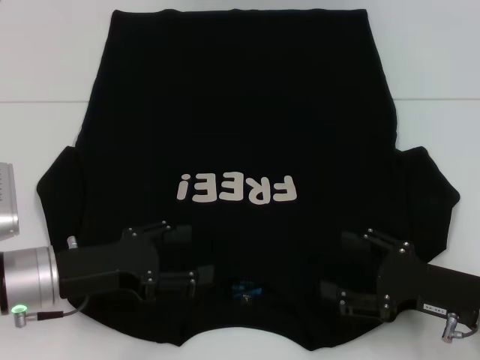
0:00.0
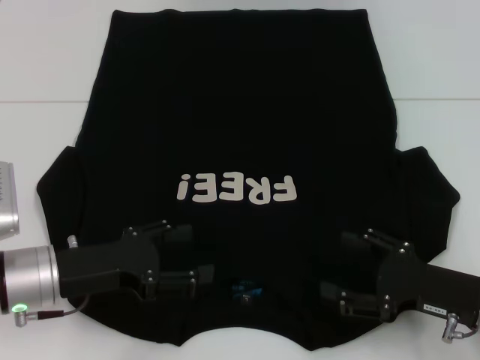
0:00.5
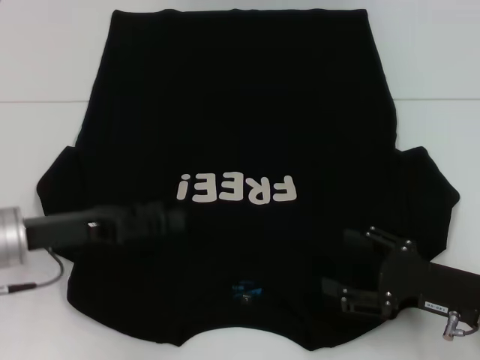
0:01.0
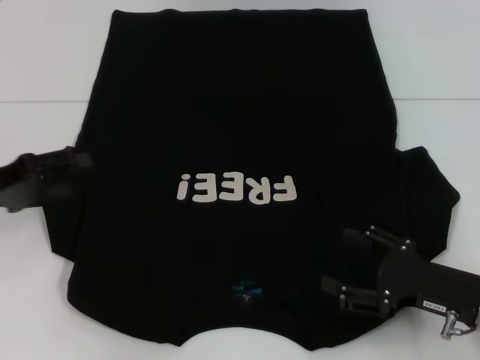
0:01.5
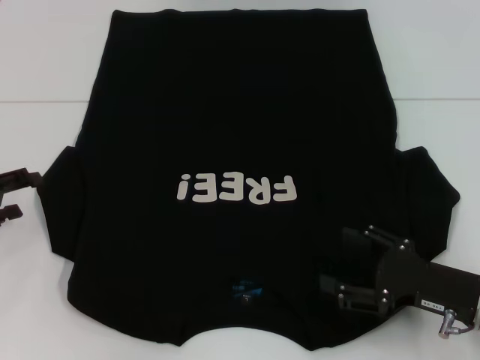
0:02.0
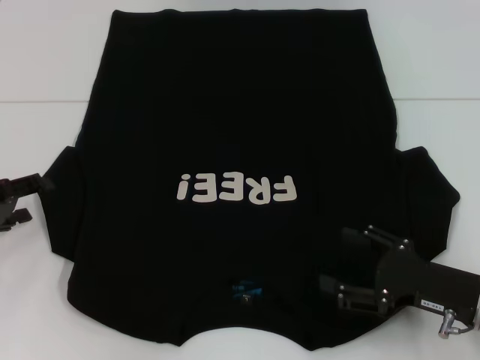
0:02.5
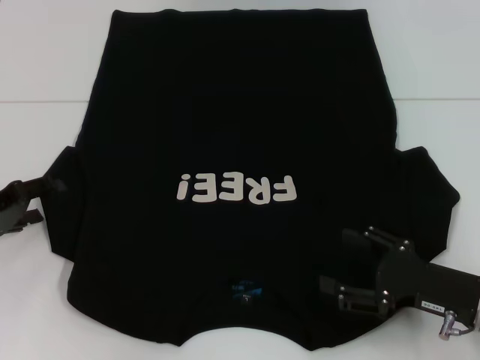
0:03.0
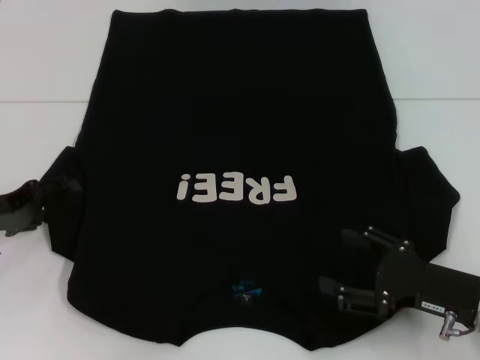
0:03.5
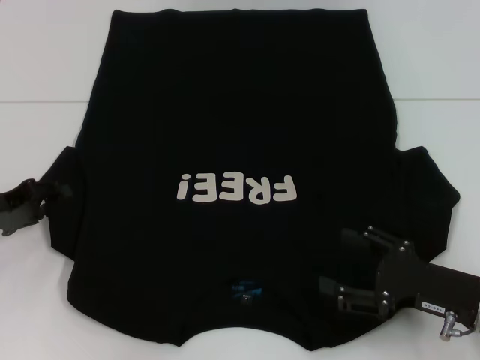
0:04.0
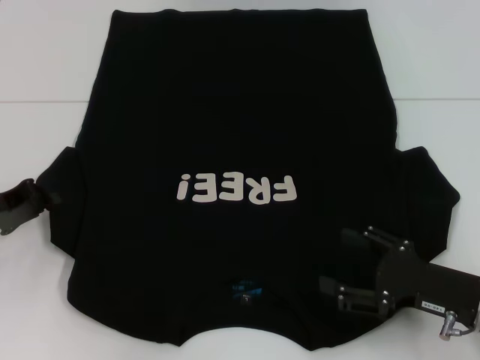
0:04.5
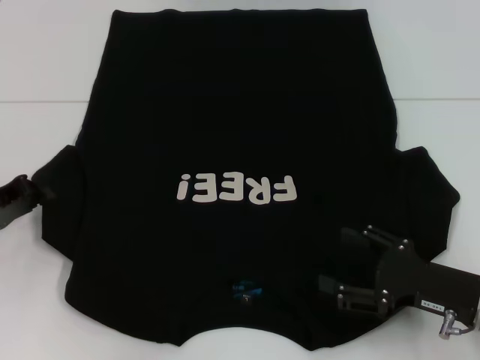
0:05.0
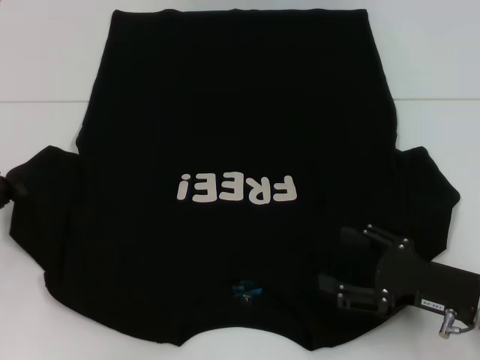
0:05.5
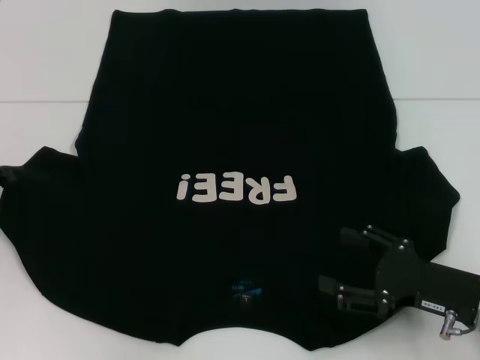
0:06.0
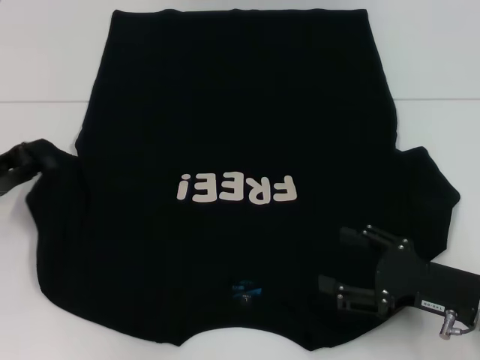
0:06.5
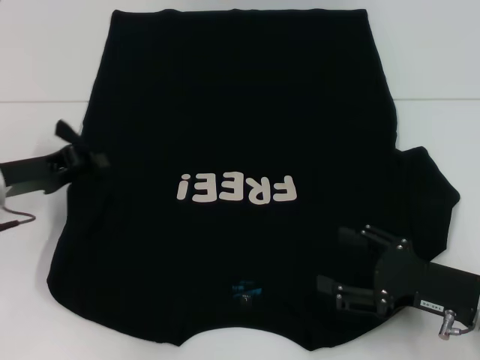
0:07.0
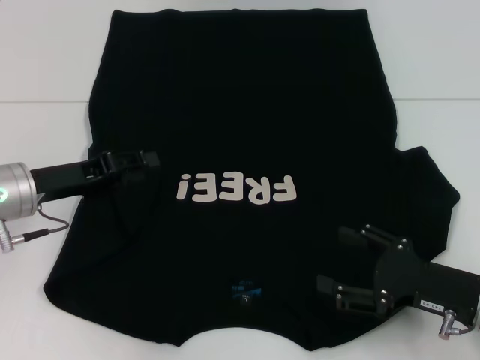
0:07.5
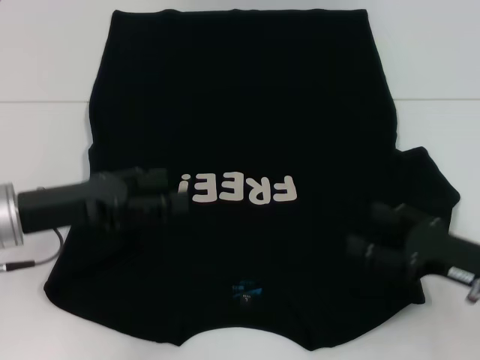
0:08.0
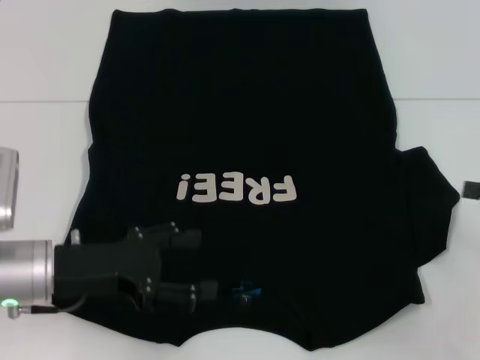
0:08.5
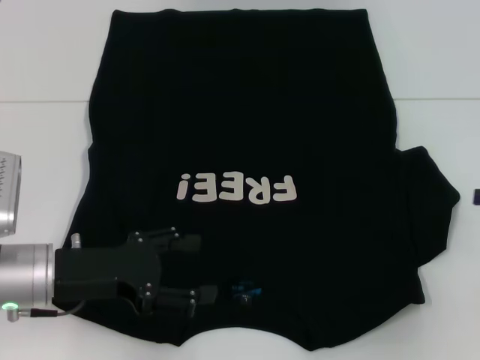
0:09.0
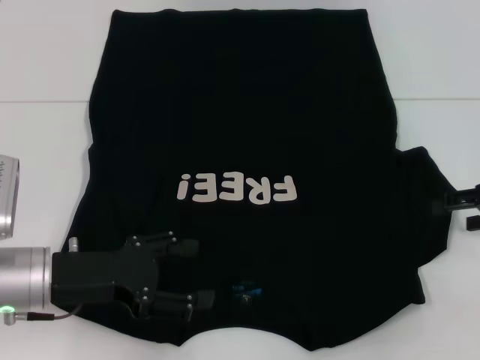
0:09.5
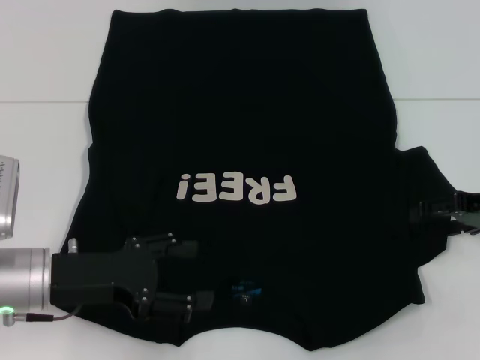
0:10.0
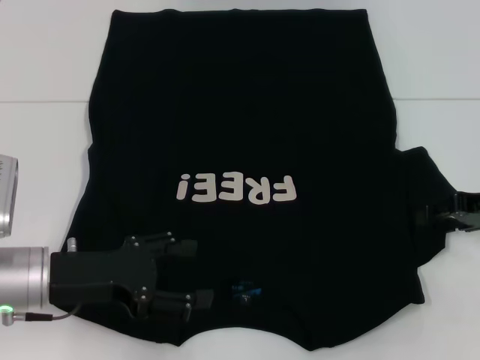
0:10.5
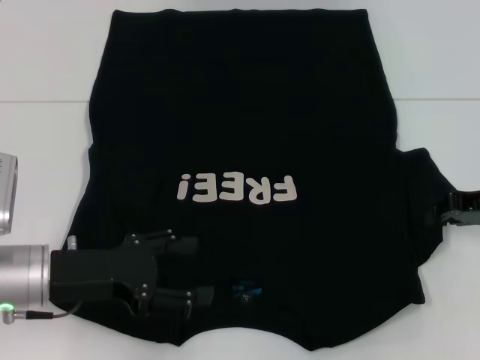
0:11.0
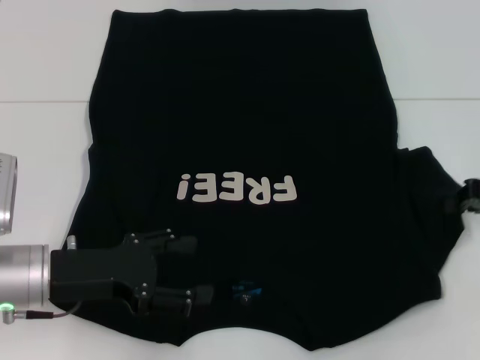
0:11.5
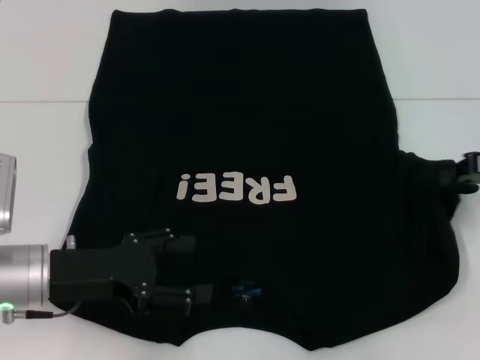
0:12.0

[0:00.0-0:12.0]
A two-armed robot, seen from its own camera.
Step, 0:00.0 to 0:07.5: Fold the bottom left sleeve with your left hand.
0:00.0 to 0:02.0: The left gripper goes about 15 cm to the left.
0:02.0 to 0:04.0: There are only small adjustments of the grippers.
0:04.0 to 0:06.0: The left gripper closes.
0:06.0 to 0:08.0: The left gripper shifts about 10 cm to the right, and opens.
0:08.0 to 0:10.0: The right gripper goes roughly 10 cm forward and upward. The left gripper changes place by some 5 cm.
0:10.0 to 0:12.0: The right gripper closes its fingers.

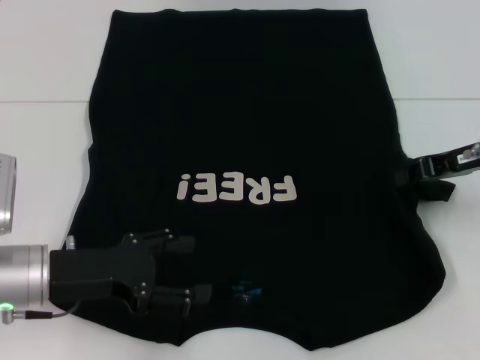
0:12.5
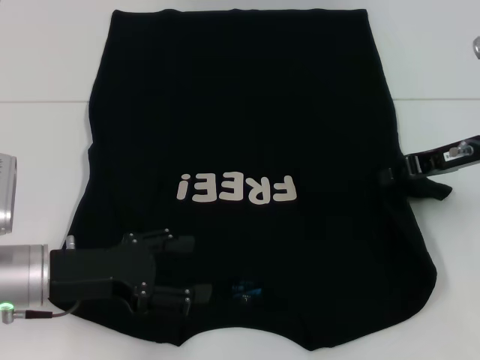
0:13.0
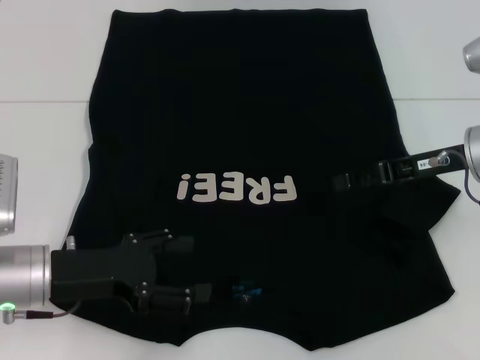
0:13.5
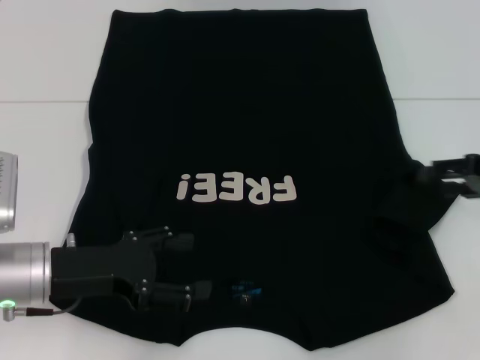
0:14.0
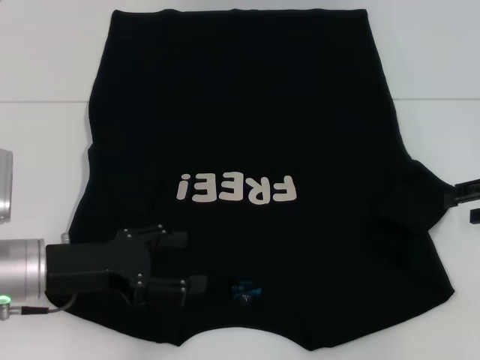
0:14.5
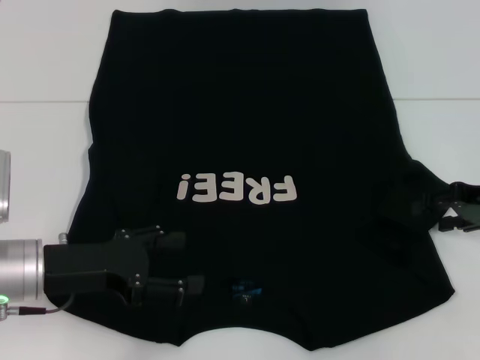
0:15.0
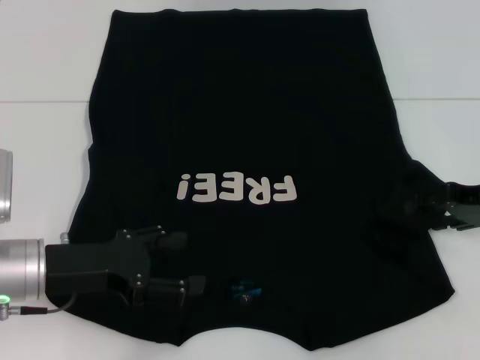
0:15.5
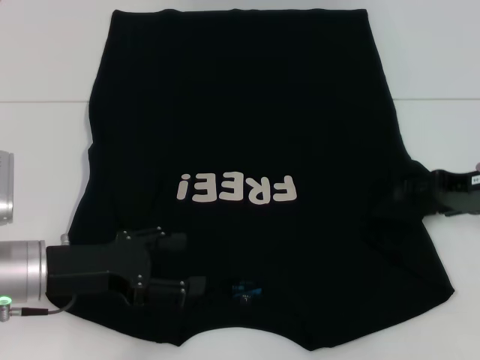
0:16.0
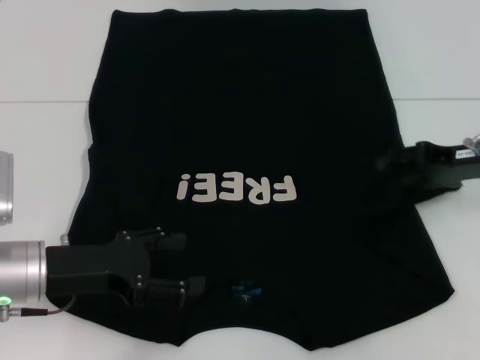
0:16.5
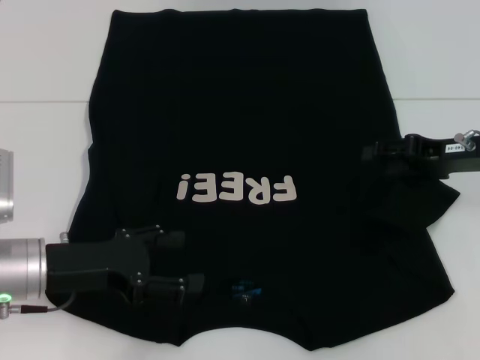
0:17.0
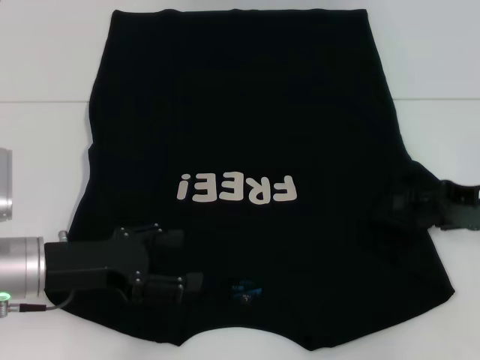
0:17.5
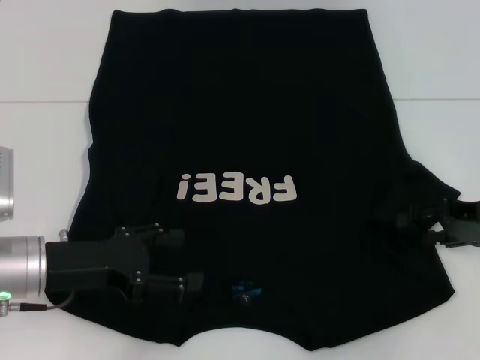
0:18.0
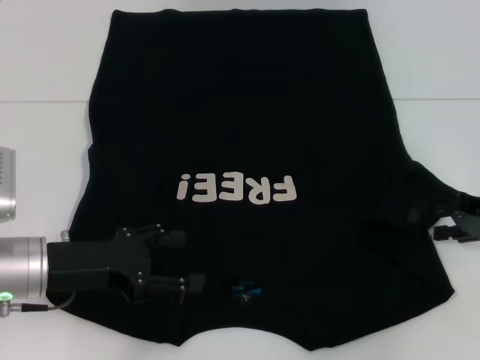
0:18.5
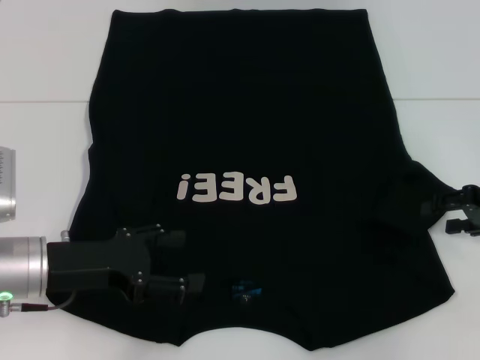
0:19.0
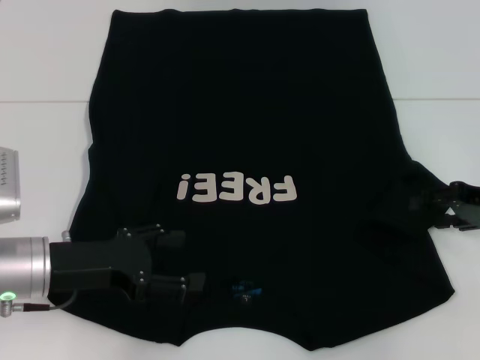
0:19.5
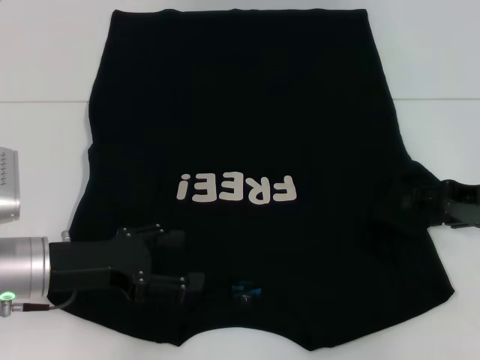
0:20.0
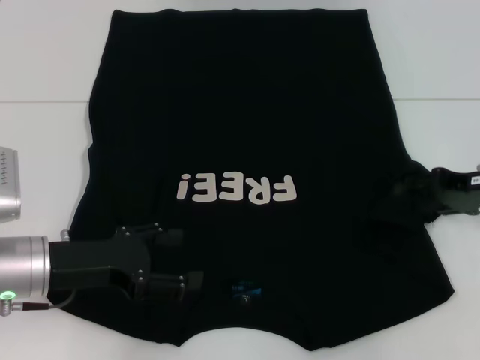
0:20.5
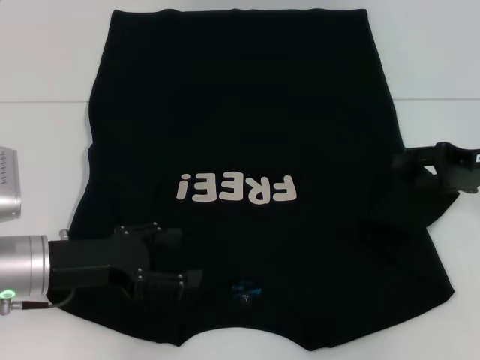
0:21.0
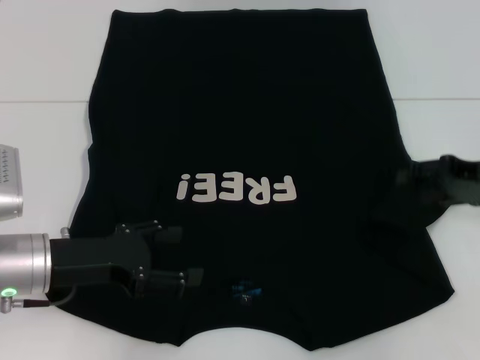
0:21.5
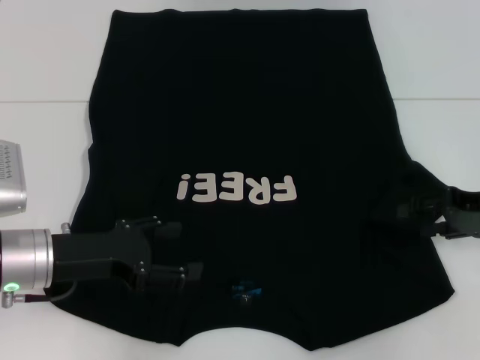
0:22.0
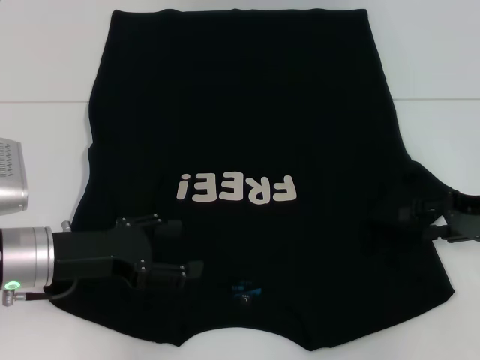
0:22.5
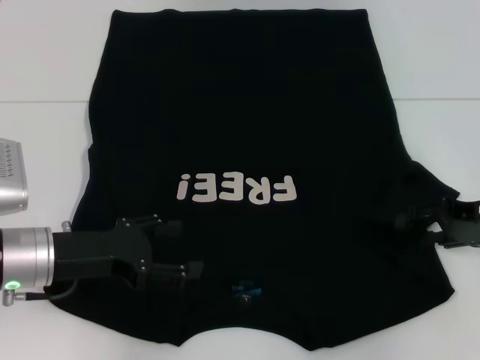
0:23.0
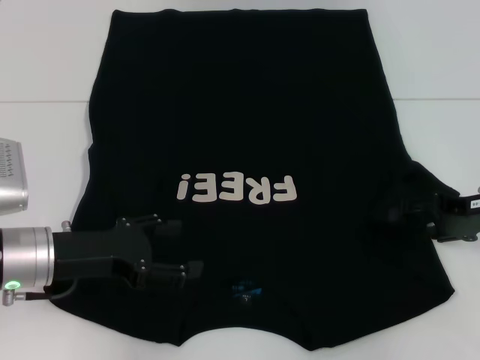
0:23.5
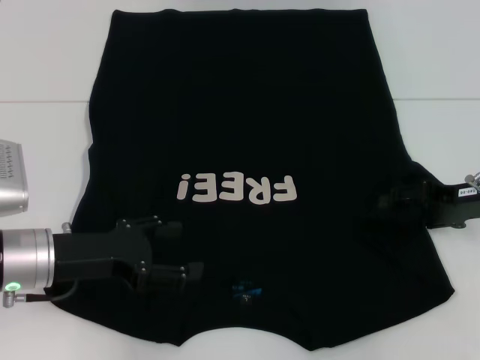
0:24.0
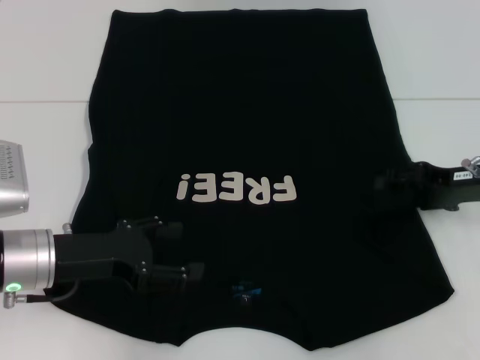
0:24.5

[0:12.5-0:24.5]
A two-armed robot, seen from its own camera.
0:12.5 to 0:14.5: The right gripper travels to the right by approximately 10 cm, and opens.
0:14.5 to 0:16.5: The right gripper moves to the left, approximately 5 cm.
0:16.5 to 0:18.5: The right gripper moves approximately 5 cm.
0:18.5 to 0:24.5: The grippers make only small movements.

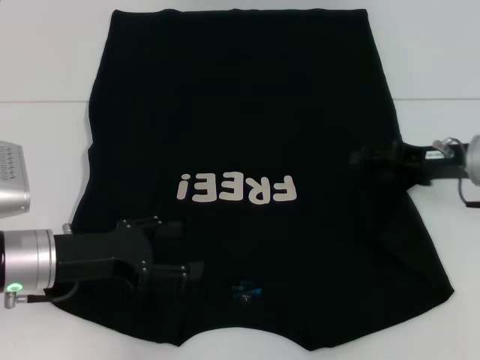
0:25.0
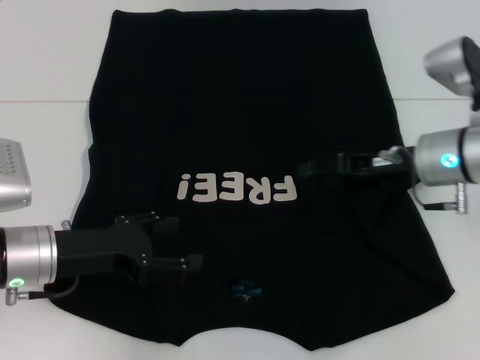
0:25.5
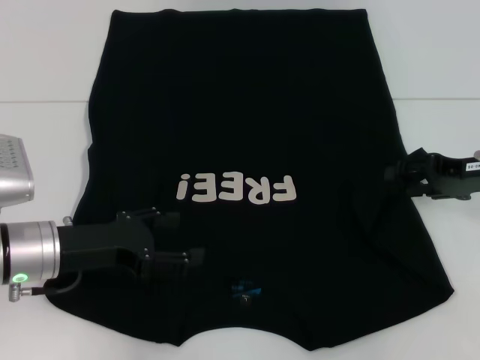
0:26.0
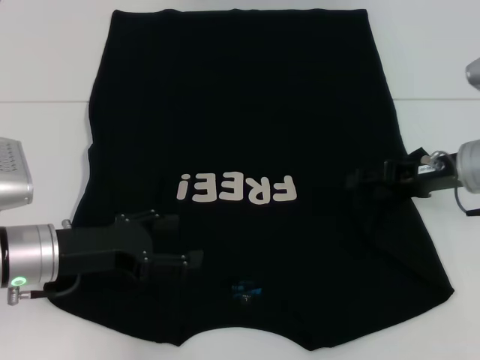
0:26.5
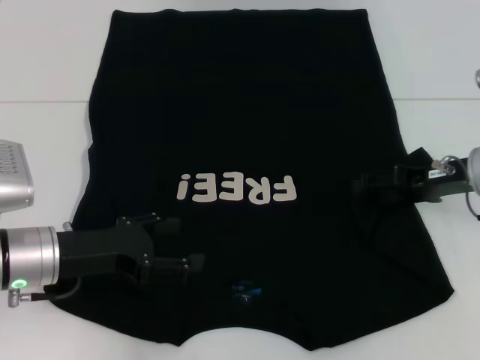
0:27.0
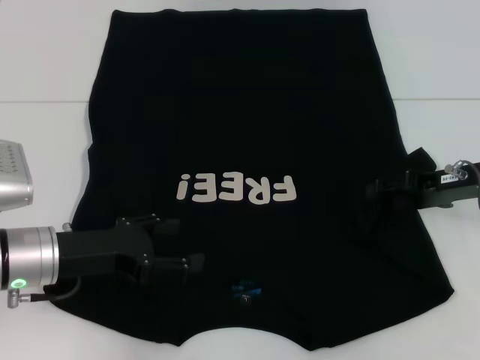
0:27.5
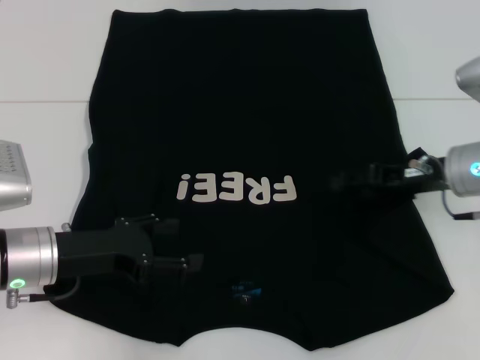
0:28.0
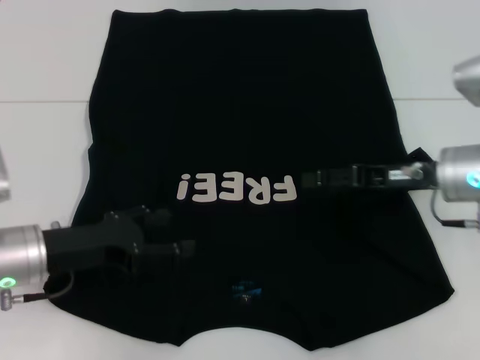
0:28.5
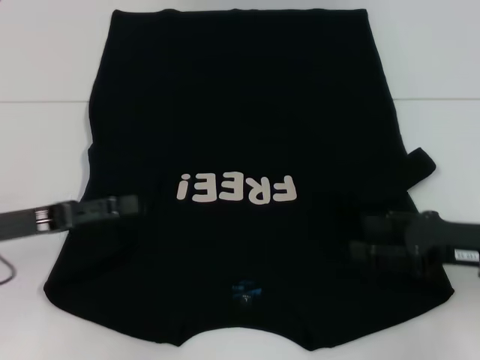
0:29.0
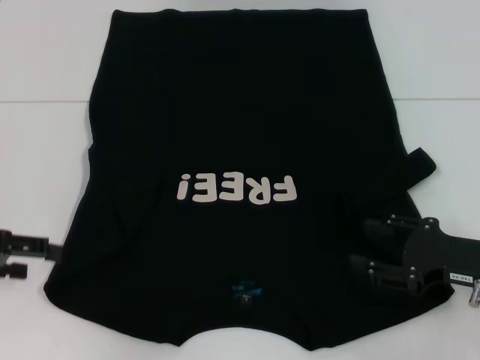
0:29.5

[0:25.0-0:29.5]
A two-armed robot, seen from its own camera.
Step, 0:25.0 to 0:27.5: Fold the bottom right sleeve with your right hand.
0:25.0 to 0:27.0: The right gripper swings left and right, about 10 cm each way, with 2 reversals.
0:27.0 to 0:29.5: The right gripper travels backward by approximately 10 cm. The left gripper travels to the left and upward by some 15 cm.
